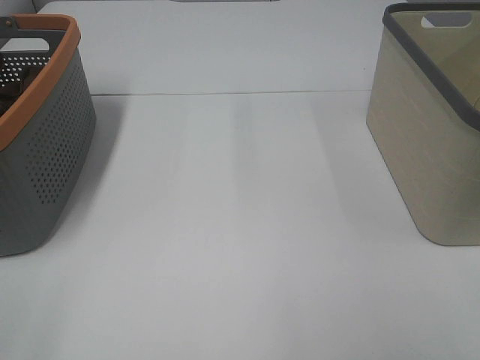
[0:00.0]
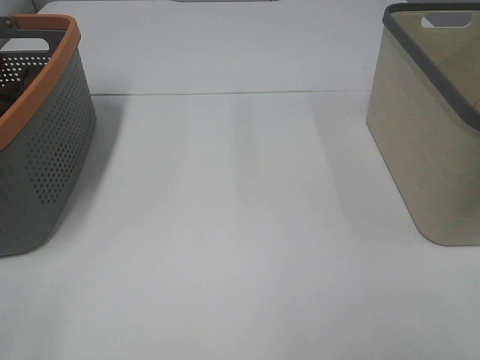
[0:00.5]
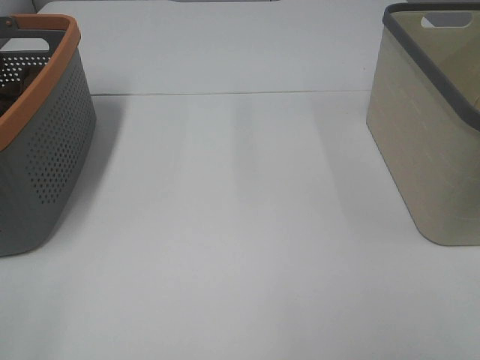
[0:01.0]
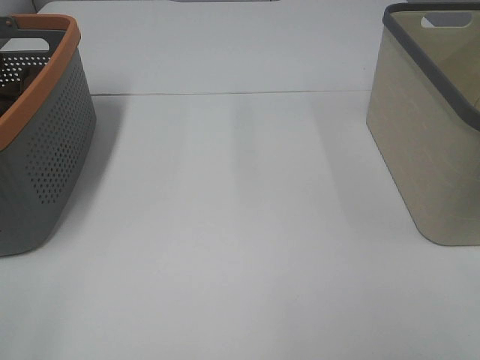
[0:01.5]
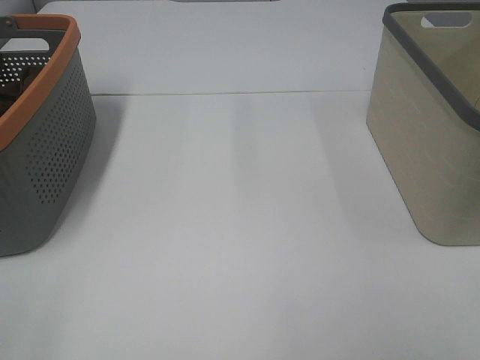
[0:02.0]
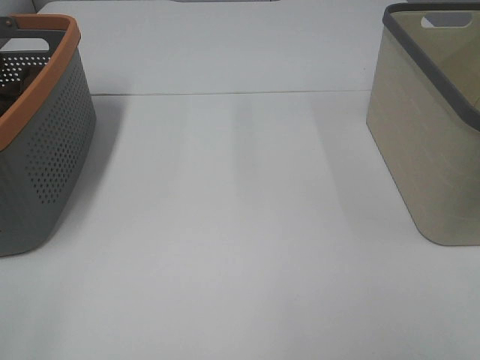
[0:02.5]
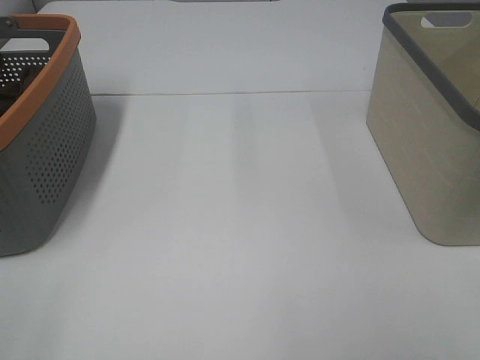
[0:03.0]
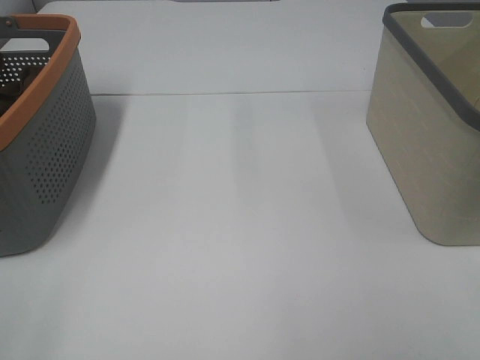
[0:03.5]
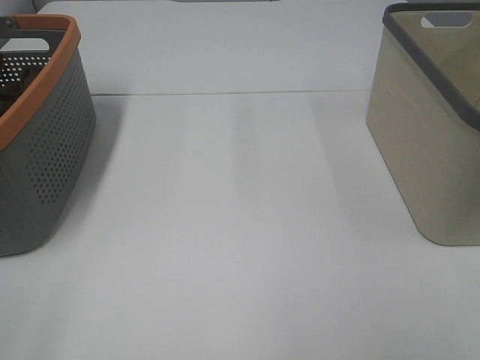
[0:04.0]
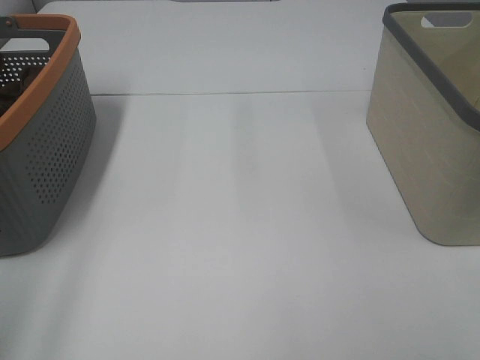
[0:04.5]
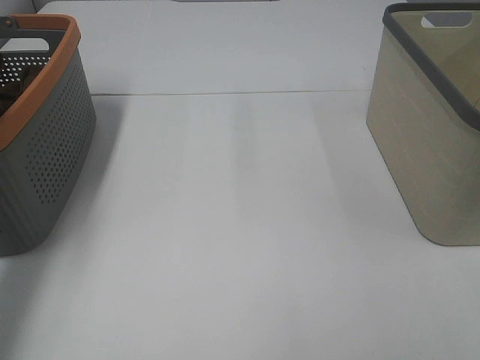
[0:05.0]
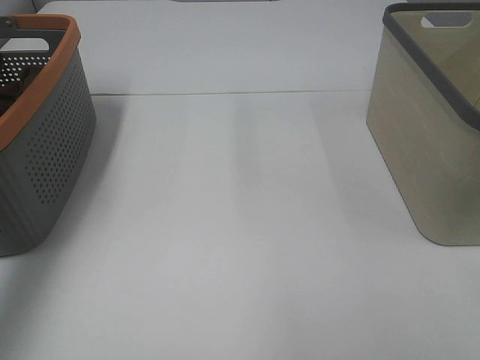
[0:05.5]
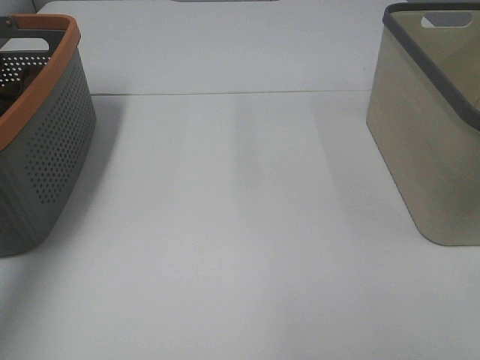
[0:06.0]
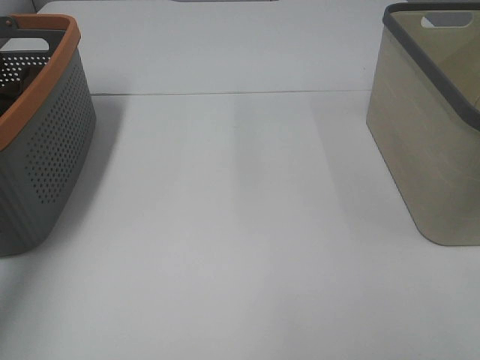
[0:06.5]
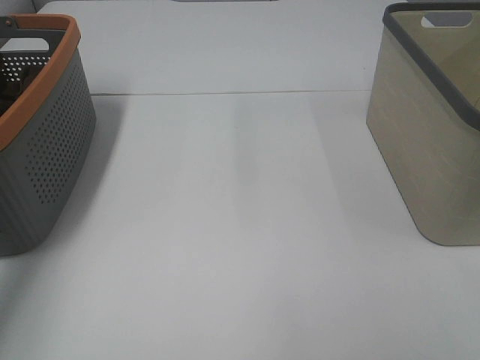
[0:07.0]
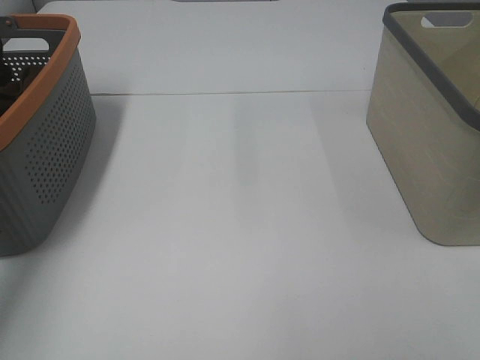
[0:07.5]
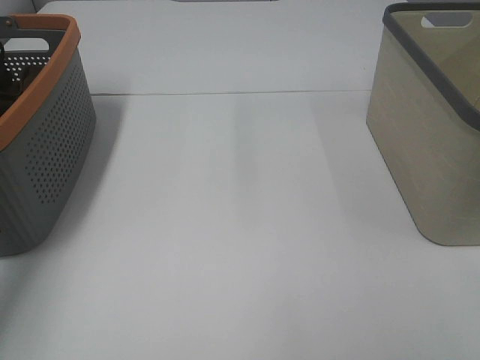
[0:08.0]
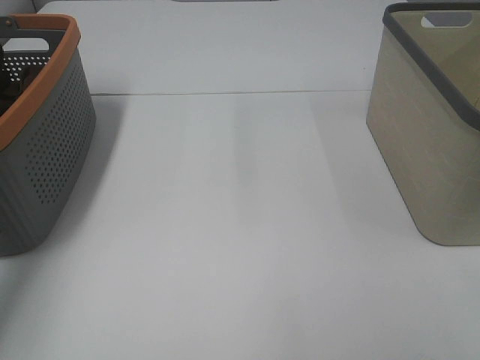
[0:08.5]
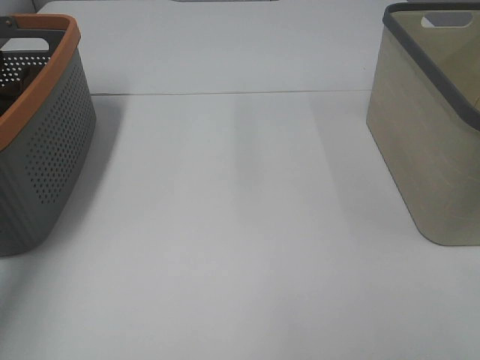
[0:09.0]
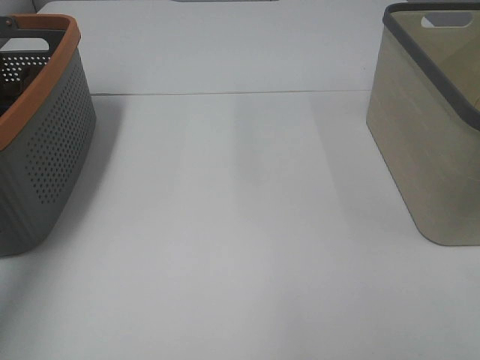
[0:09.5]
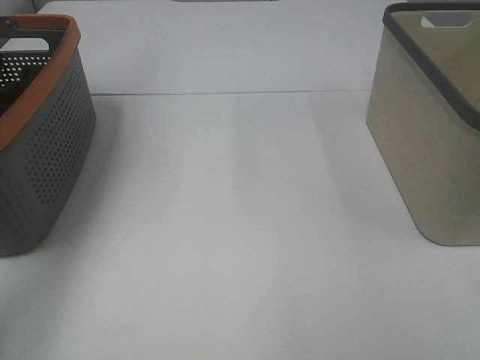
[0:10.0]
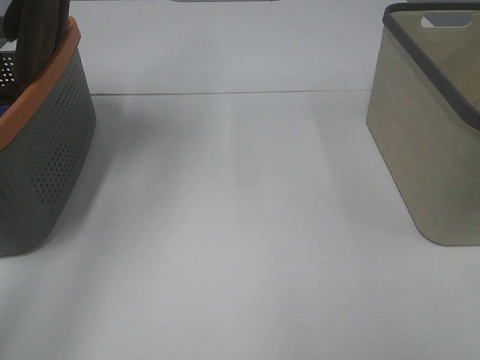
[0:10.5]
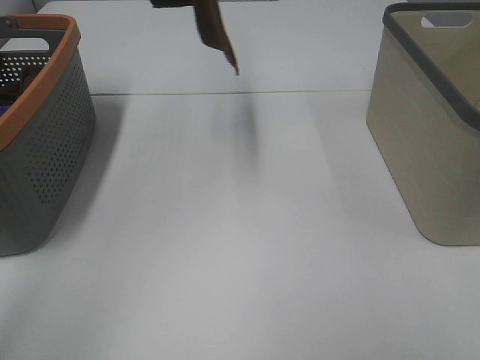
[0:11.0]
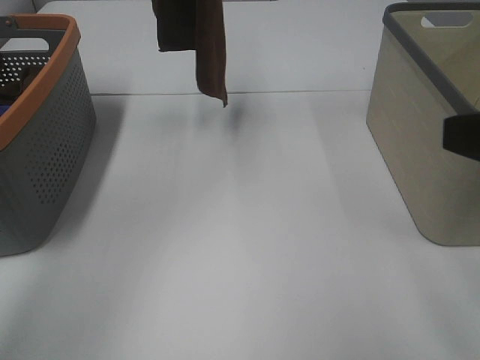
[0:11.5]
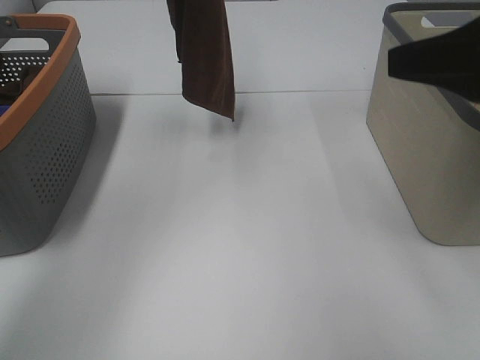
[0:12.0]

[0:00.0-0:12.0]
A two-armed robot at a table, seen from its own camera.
Task of the whole recording: Remove the towel and place it.
0:00.0 to 0:04.0: Neither gripper changes place.
0:04.0 to 0:06.0: The left gripper is displaced forward by roughly 40 cm.
0:08.0 to 0:10.0: The left gripper is displaced upward by some 25 cm, and closes its fingers.
0:10.0 to 0:12.0: The left gripper is displaced to the right by some 15 cm. Meanwhile the right gripper heads forward, covering some 20 cm.

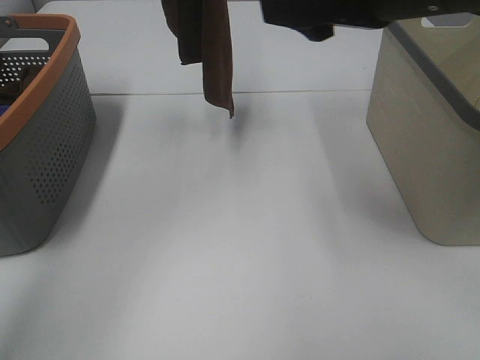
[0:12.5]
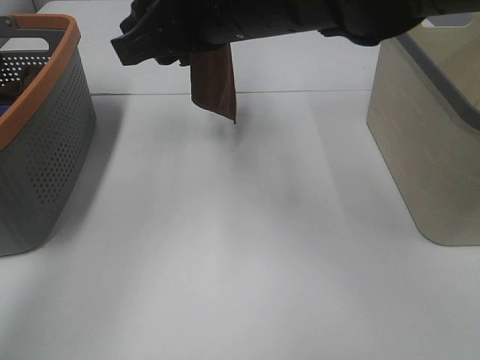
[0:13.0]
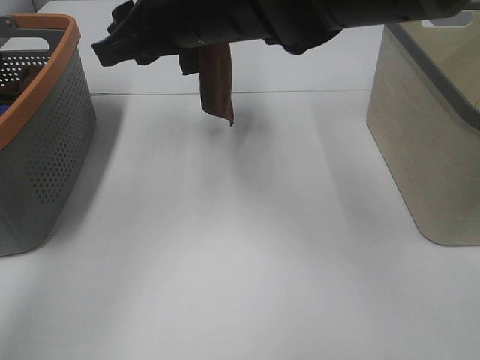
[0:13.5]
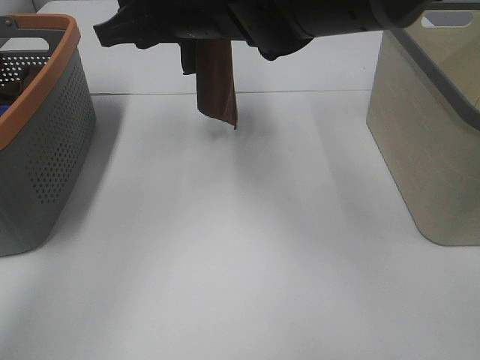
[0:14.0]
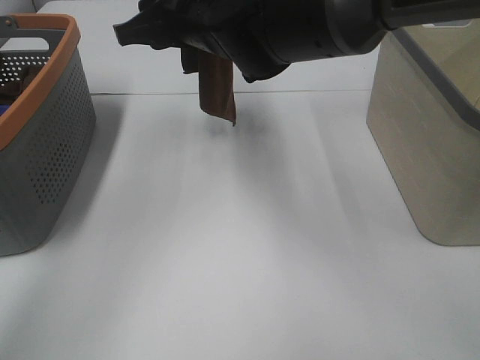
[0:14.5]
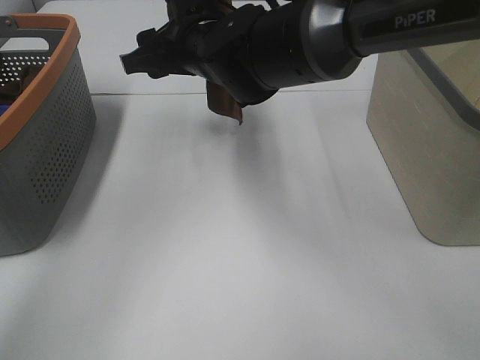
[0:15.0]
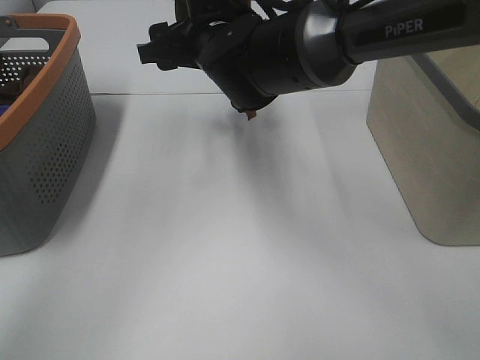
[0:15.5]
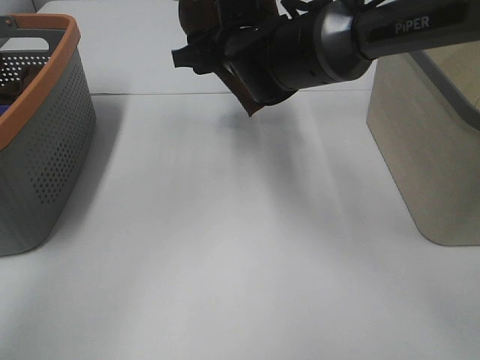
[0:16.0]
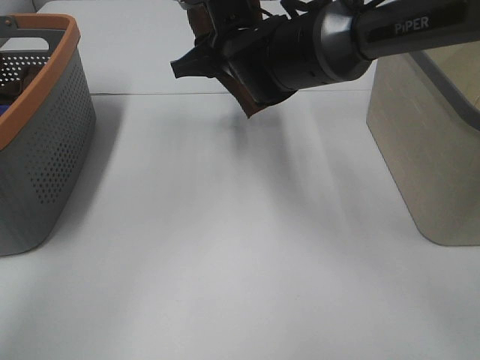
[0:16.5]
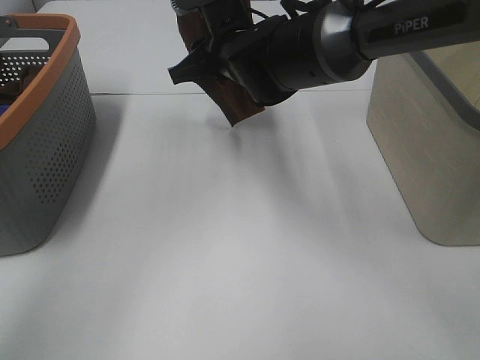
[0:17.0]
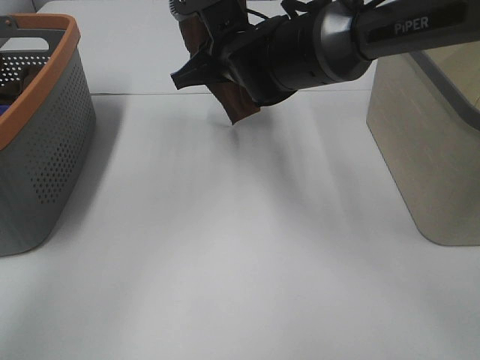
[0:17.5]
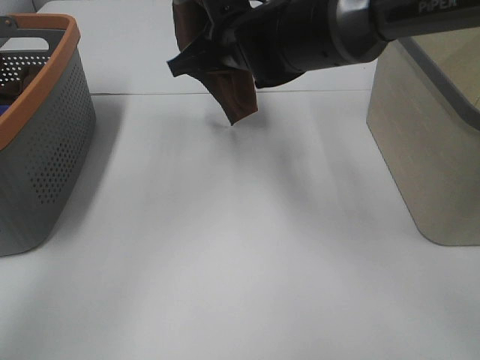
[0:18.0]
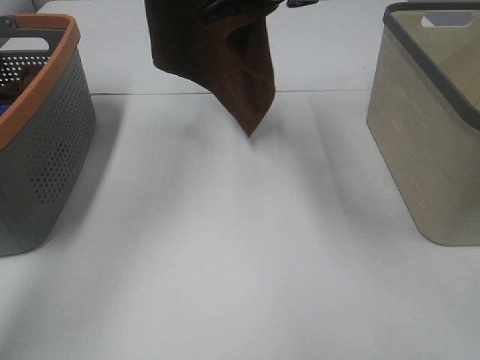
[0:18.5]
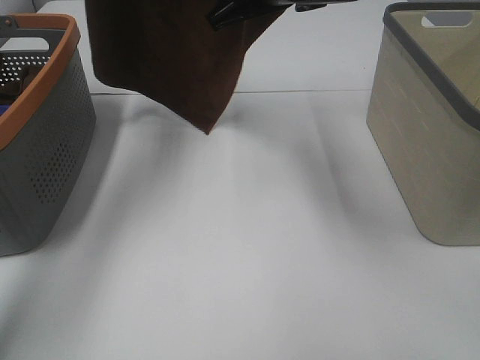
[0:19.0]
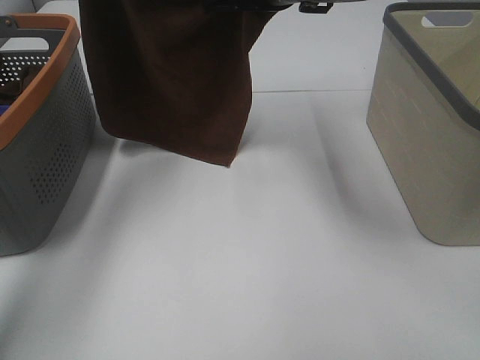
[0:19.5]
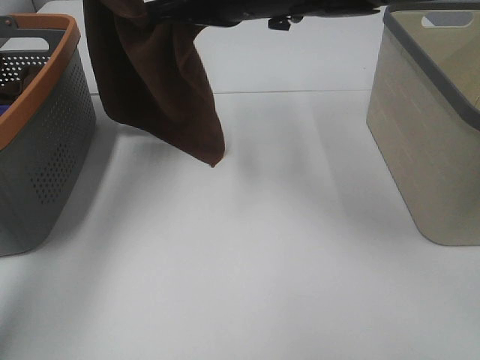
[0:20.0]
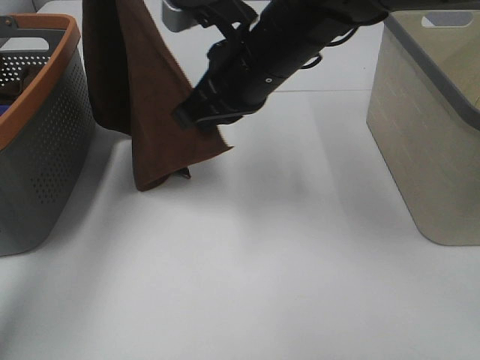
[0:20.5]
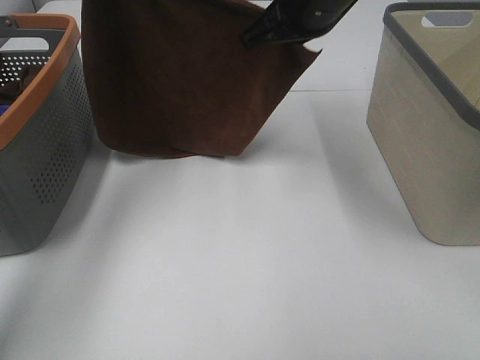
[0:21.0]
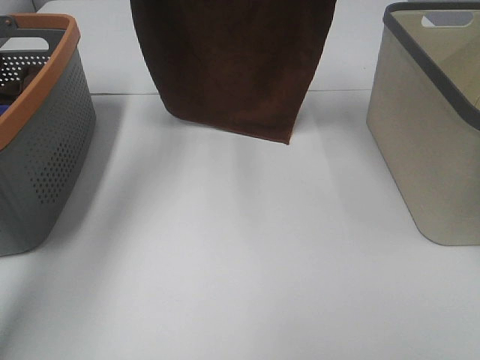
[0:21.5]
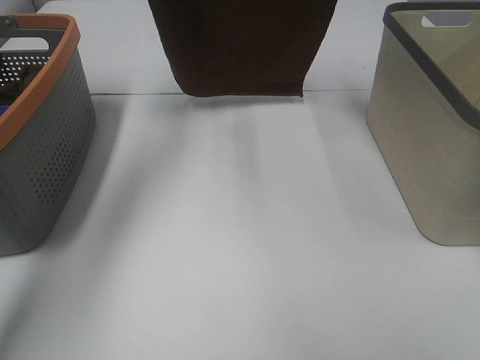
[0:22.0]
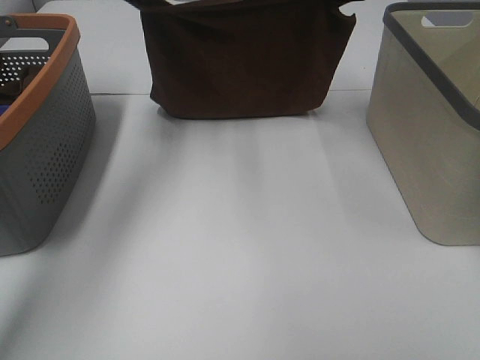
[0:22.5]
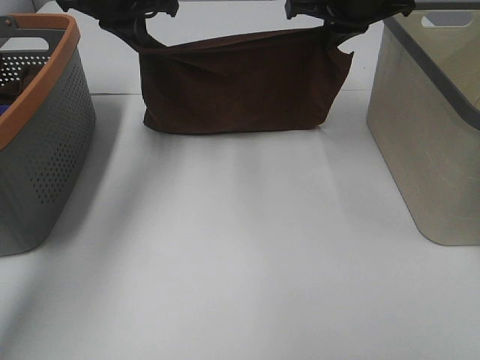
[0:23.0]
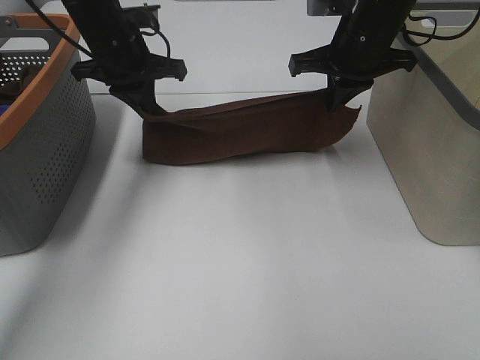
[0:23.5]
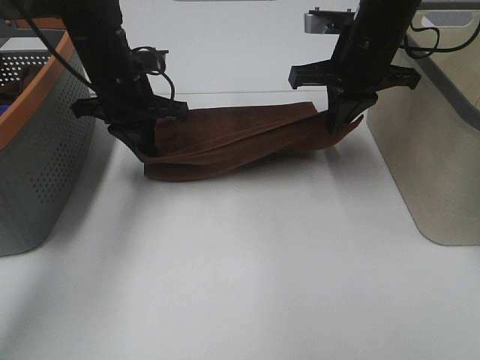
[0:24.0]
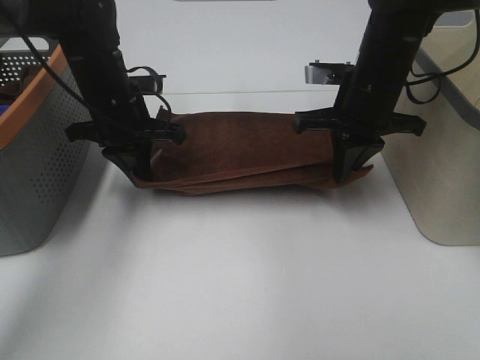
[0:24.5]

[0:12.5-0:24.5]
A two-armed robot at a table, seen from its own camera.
Task of the whole recording: Remove the towel and place it.
Step, 0:12.5 to 0:17.0: Right hand: grab a corner of the brown towel and straighten it.
Step, 0:17.5 to 0:20.0: Right hand: spread the brown towel flat on the table.
Step, 0:17.5 to 0:20.5: Left hand: spread the brown towel flat on the table.
0:12.5 to 0:14.5: The right gripper moves to the left, forward and downward, roughly 20 cm.
0:14.5 to 0:16.5: The right gripper moves downward, about 5 cm.
0:16.5 to 0:18.5: The right gripper shifts approximately 10 cm upward, and closes, while the left gripper changes place by about 5 cm.
0:18.5 to 0:20.5: The left gripper is displaced to the left by approximately 5 cm; the right gripper moves downward, roughly 5 cm.
0:20.5 to 0:22.5: The right gripper shifts roughly 20 cm forward, to the right and upward. Meanwhile the left gripper shifts about 10 cm downward.
0:22.5 to 0:24.5: The two grippers go roughly 15 cm downward and backward.

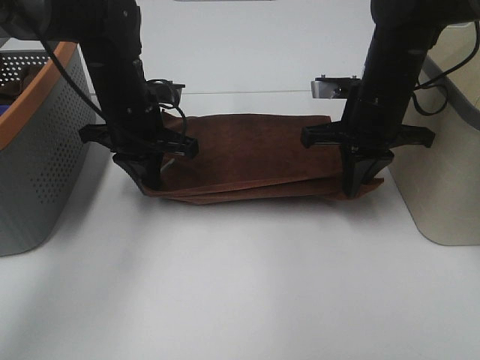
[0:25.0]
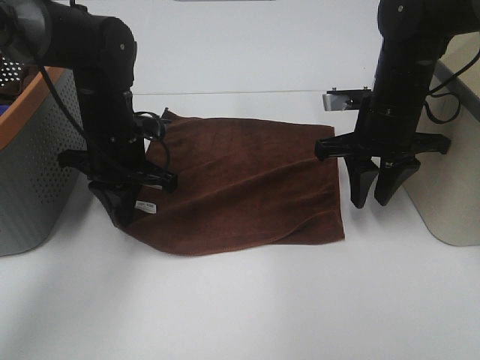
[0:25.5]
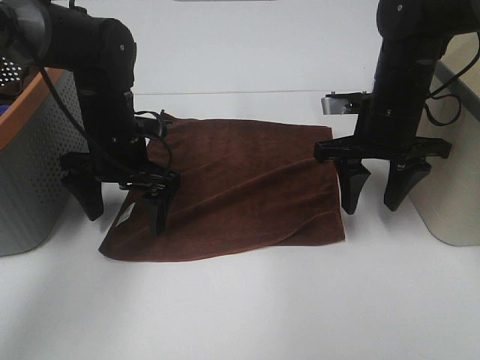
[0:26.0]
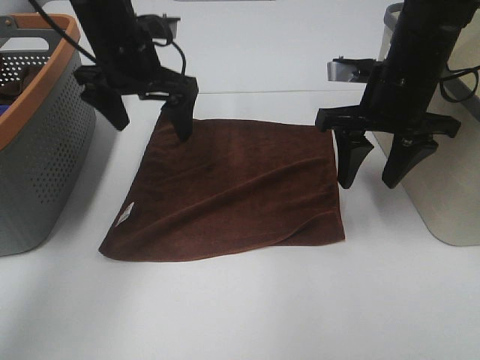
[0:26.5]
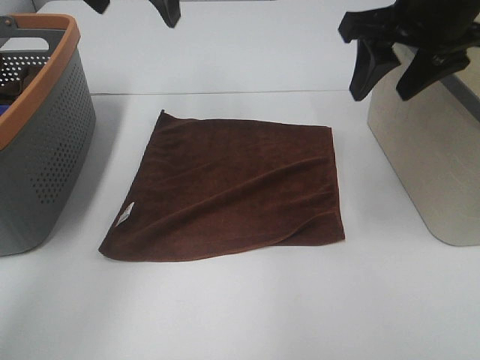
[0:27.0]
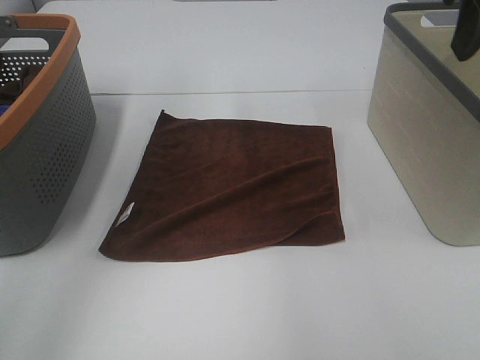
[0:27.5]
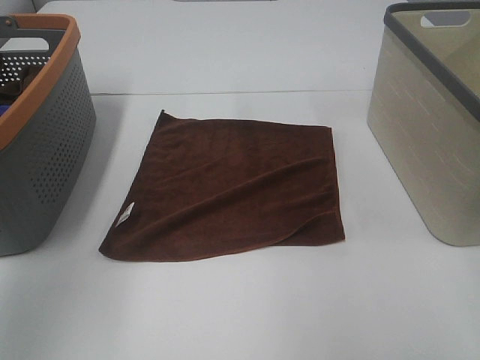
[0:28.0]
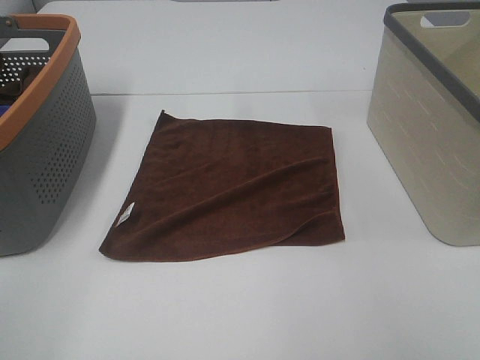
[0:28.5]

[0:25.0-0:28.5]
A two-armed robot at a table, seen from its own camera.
Task of the whole recording: Remove the towel and place it.
0:25.0 to 0:27.0: The grippers both shift upward by roughly 15 cm. The right gripper opens. Meanwhile the left gripper opens its fingers.
0:27.0 to 0:28.5: The right gripper is displaced backward by roughly 30 cm; the left gripper is displaced backward and to the left by approximately 40 cm.
